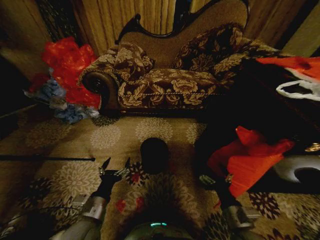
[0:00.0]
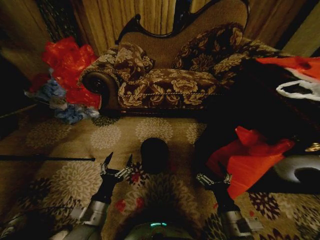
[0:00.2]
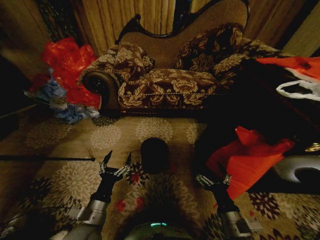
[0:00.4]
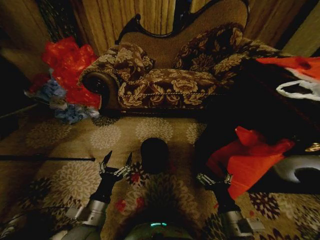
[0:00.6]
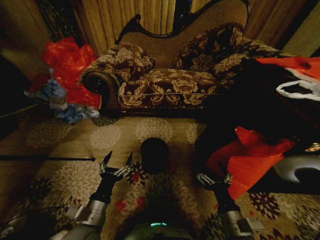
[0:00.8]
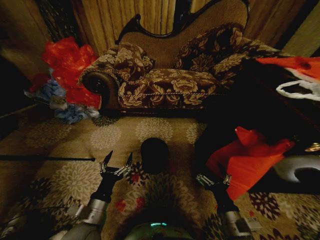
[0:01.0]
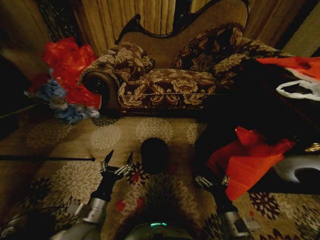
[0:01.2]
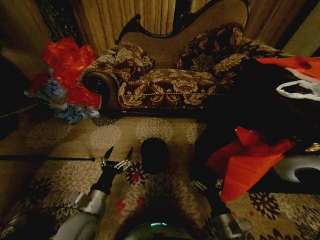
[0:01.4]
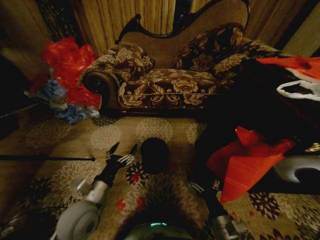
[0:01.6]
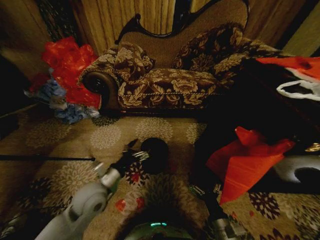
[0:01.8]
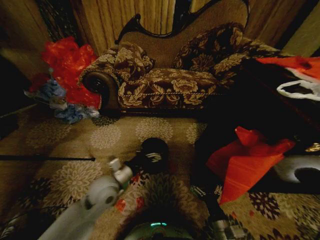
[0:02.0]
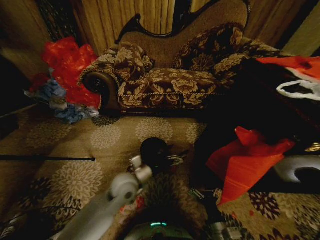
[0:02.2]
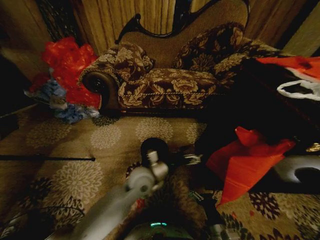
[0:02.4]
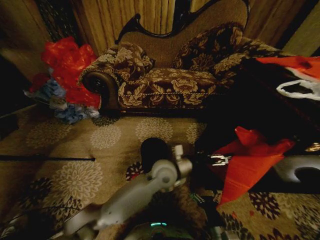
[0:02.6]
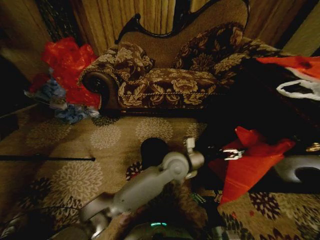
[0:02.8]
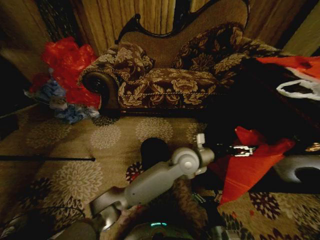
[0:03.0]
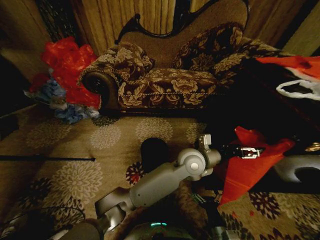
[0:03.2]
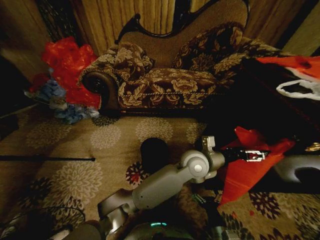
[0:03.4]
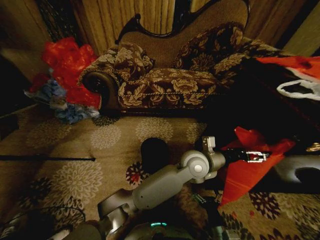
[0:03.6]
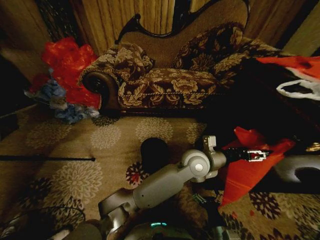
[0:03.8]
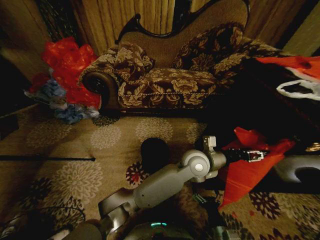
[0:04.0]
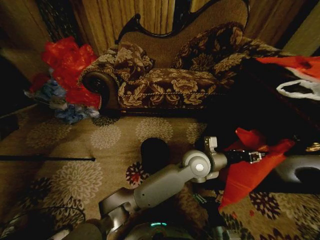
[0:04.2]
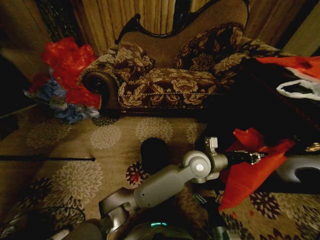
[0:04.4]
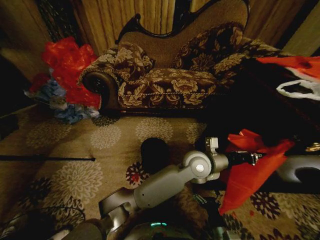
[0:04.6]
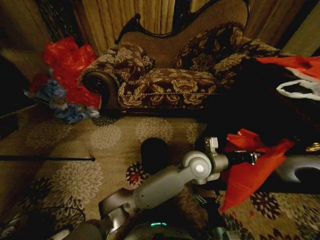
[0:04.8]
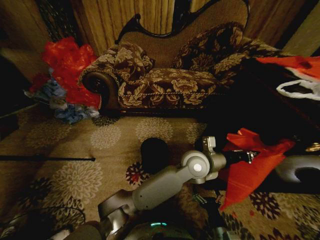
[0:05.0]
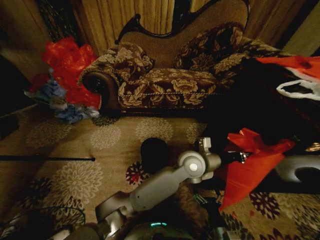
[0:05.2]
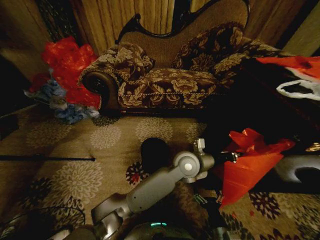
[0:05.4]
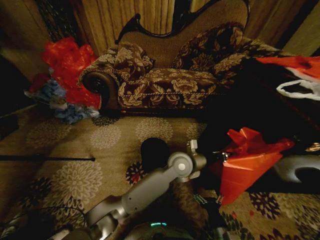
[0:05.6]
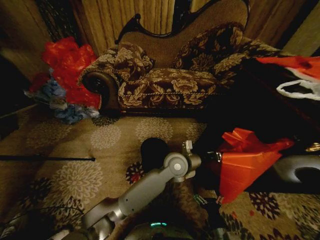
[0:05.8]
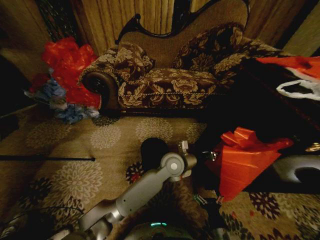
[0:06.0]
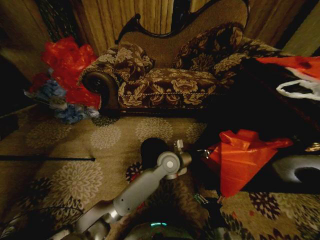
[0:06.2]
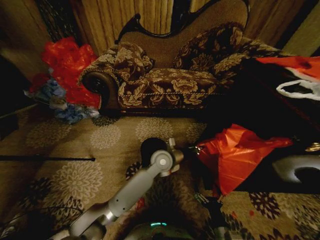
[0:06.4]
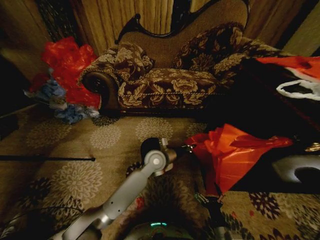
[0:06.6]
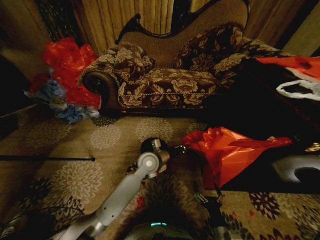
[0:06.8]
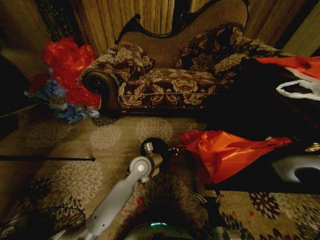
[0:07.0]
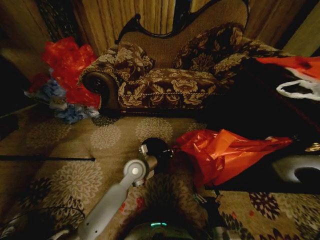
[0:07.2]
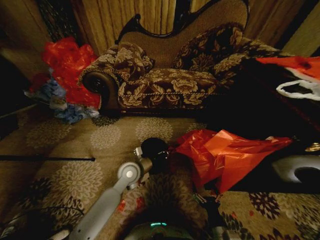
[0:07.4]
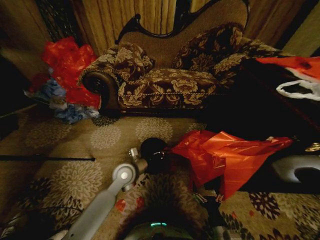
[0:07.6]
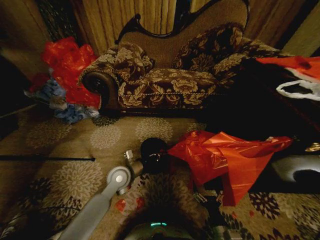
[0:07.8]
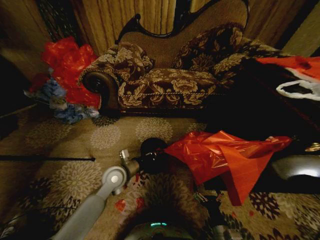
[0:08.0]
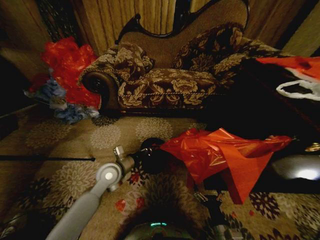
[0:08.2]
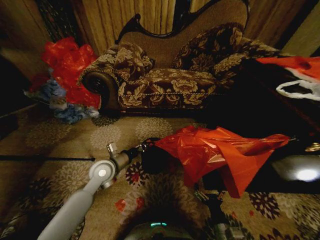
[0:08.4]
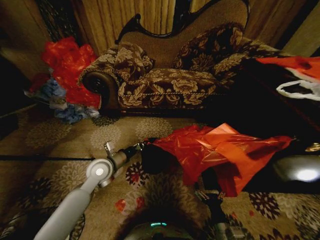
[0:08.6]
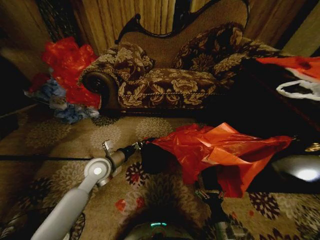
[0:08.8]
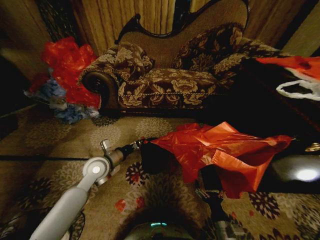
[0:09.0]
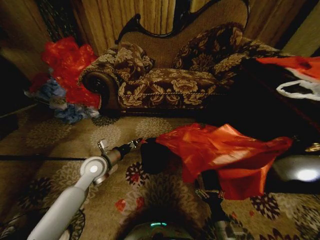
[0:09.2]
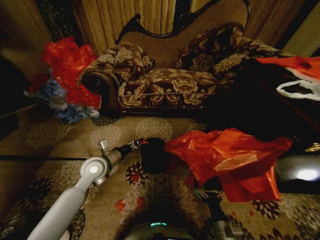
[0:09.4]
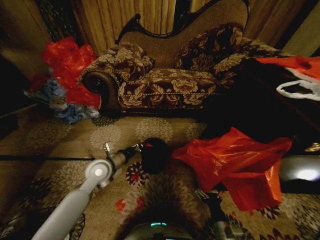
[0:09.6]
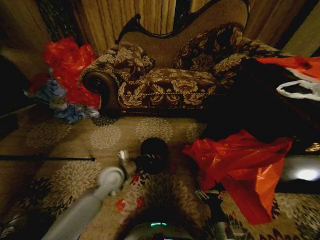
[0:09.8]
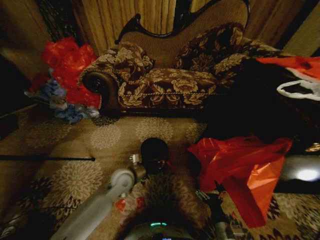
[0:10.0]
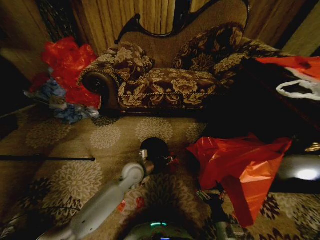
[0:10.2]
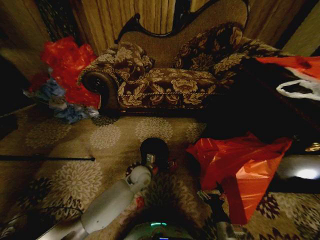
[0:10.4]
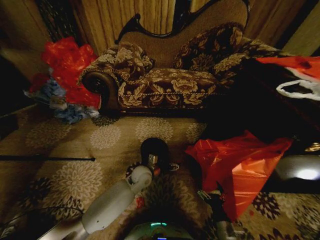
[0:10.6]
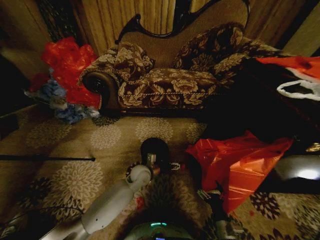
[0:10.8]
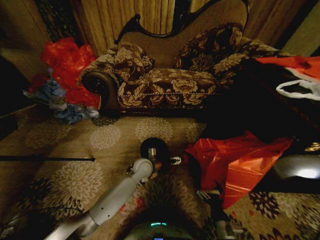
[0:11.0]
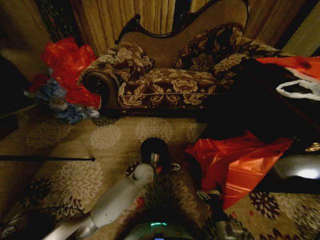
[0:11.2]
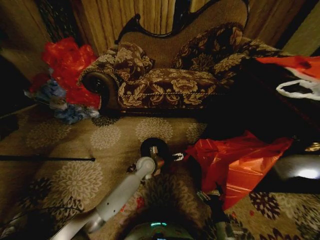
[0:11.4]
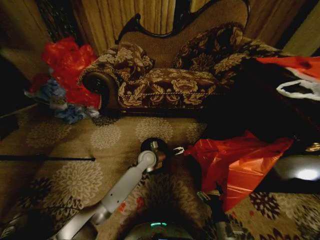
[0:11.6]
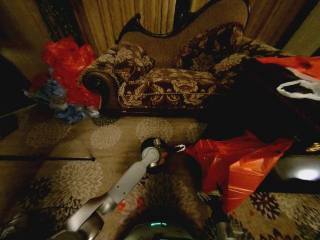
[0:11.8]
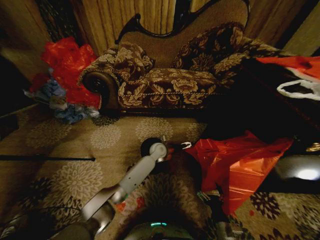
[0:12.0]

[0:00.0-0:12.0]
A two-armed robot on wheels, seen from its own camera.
Task of the whole recording: Place a garbage bag over the trash bin.
0:01.6 to 0:03.0: The left gripper travels to the right and forward by roughly 35 cm. The right gripper shifts some 10 cm downward.
0:03.0 to 0:04.4: The left gripper closes.
0:04.4 to 0:06.0: The left gripper shifts roughly 10 cm to the left.
0:06.0 to 0:07.6: The left gripper shifts some 20 cm to the left.
0:07.6 to 0:09.0: The left gripper travels to the left by about 10 cm.
0:09.0 to 0:10.4: The left gripper goes approximately 20 cm to the right and downward, and opens up.
0:10.4 to 0:12.0: The left gripper moves forward and to the right, approximately 15 cm.

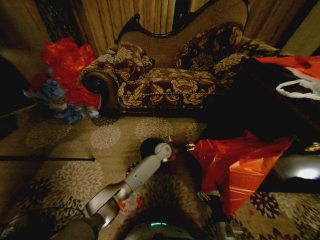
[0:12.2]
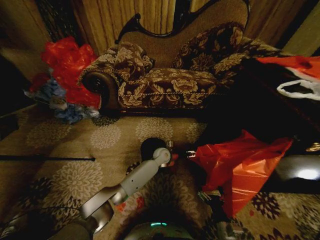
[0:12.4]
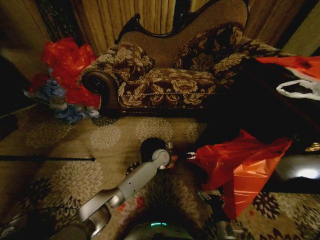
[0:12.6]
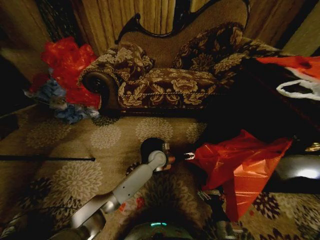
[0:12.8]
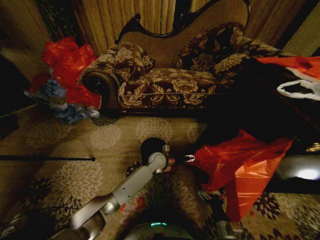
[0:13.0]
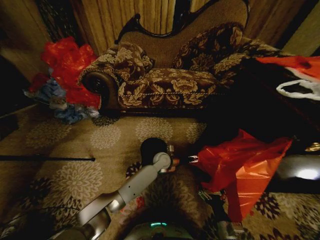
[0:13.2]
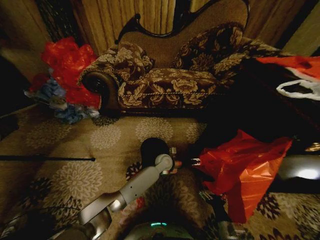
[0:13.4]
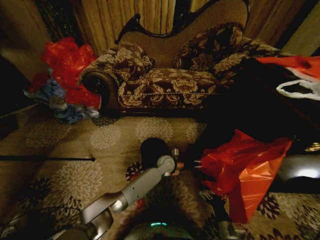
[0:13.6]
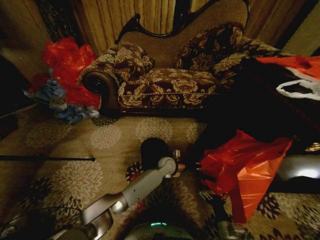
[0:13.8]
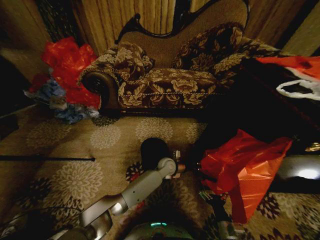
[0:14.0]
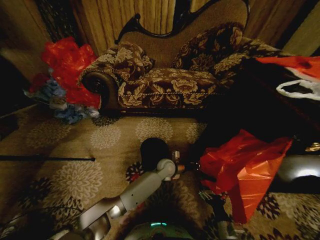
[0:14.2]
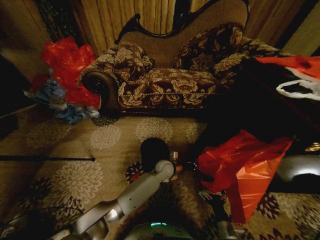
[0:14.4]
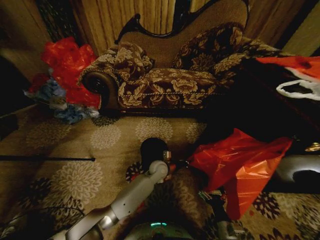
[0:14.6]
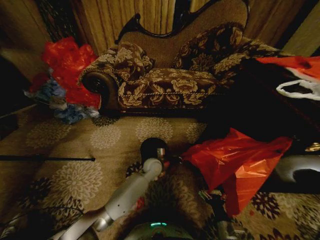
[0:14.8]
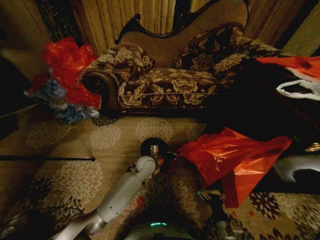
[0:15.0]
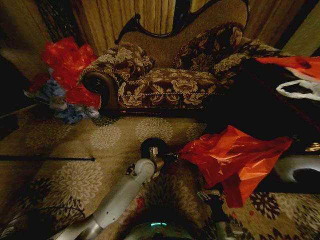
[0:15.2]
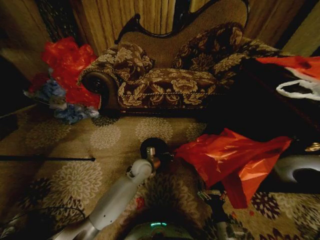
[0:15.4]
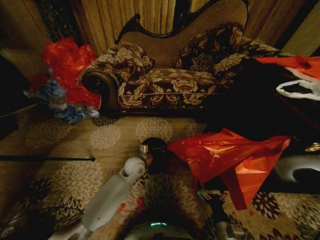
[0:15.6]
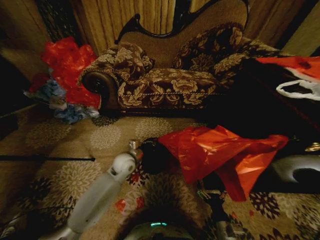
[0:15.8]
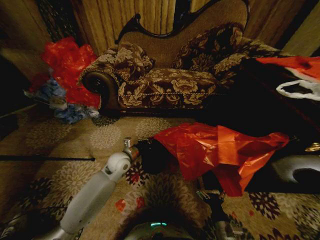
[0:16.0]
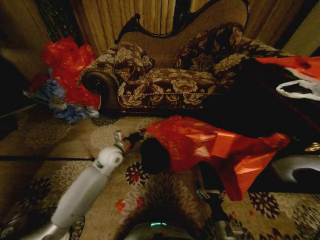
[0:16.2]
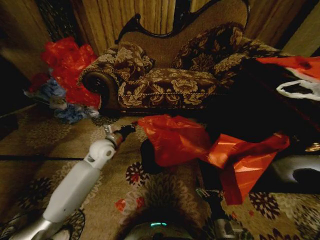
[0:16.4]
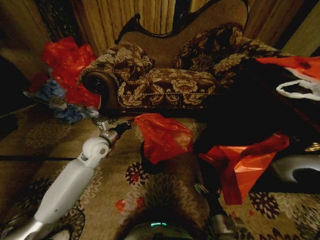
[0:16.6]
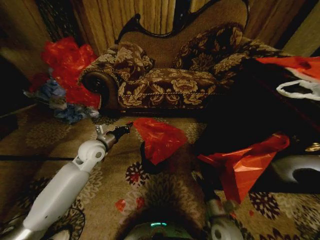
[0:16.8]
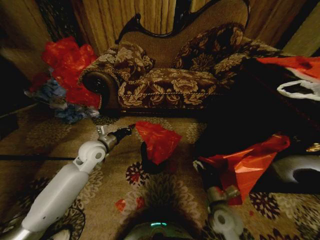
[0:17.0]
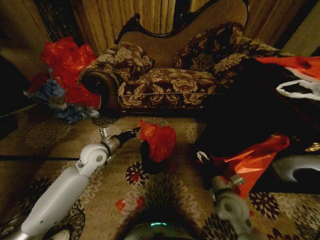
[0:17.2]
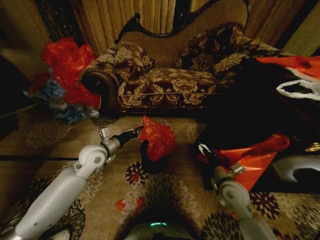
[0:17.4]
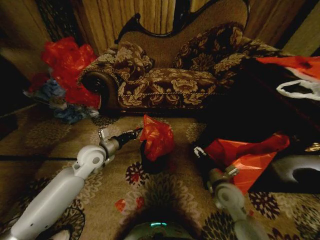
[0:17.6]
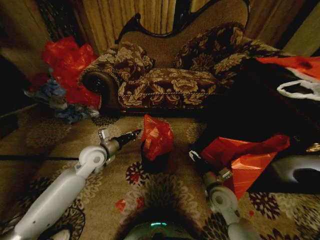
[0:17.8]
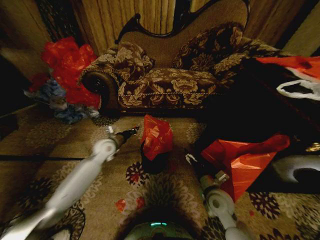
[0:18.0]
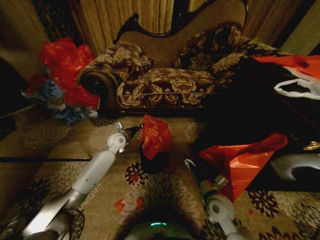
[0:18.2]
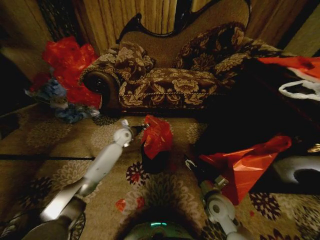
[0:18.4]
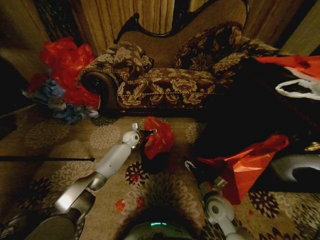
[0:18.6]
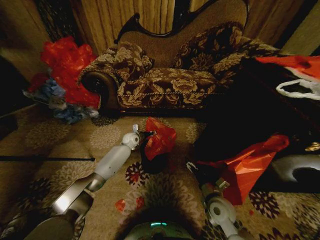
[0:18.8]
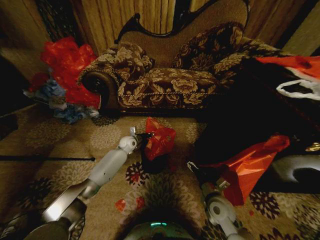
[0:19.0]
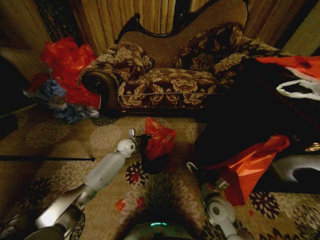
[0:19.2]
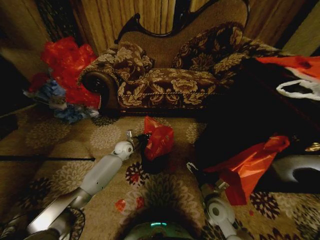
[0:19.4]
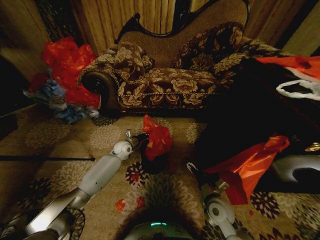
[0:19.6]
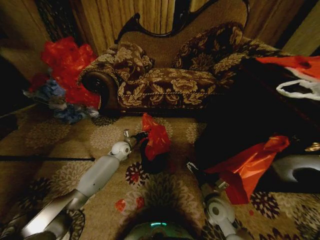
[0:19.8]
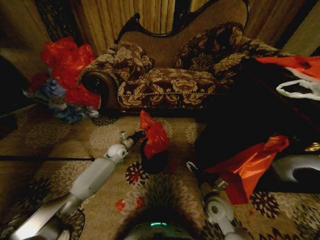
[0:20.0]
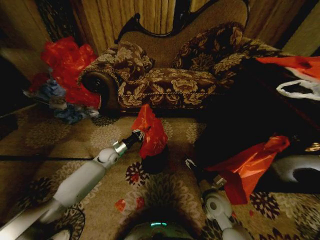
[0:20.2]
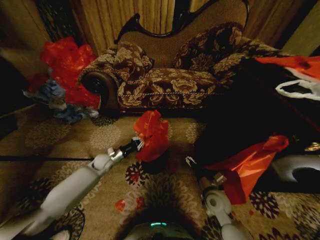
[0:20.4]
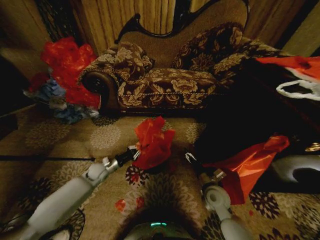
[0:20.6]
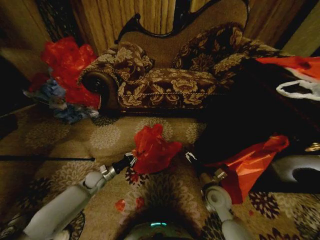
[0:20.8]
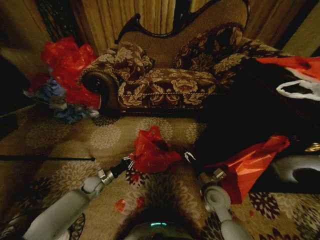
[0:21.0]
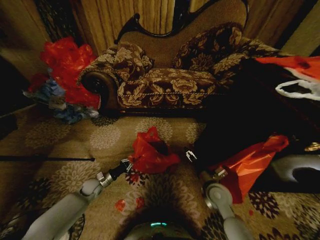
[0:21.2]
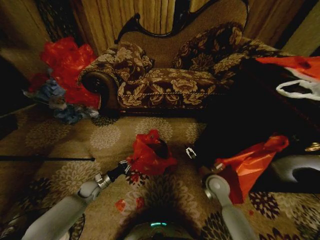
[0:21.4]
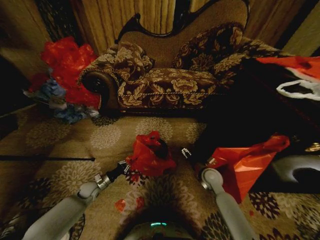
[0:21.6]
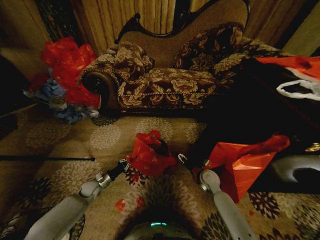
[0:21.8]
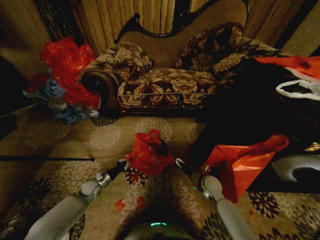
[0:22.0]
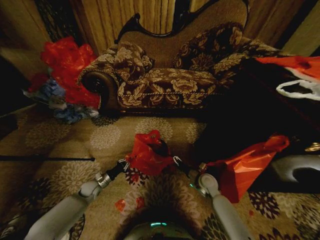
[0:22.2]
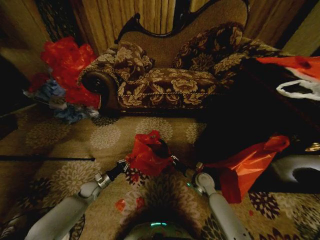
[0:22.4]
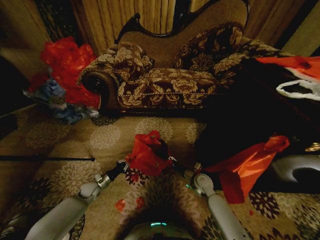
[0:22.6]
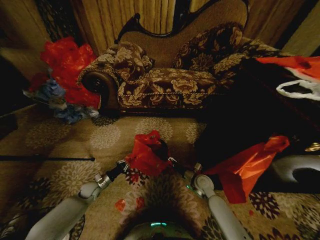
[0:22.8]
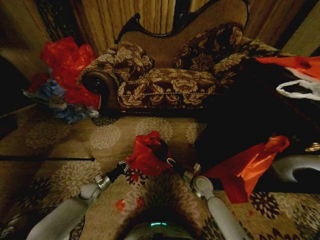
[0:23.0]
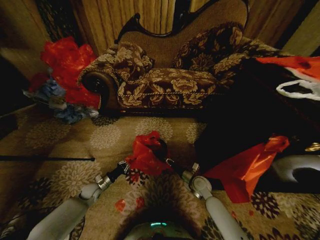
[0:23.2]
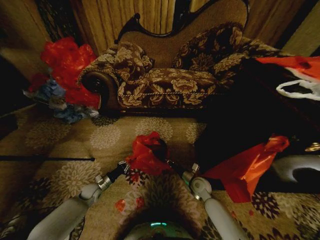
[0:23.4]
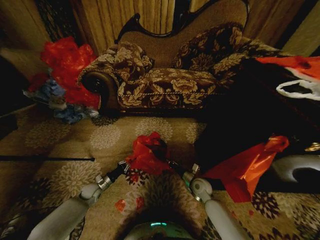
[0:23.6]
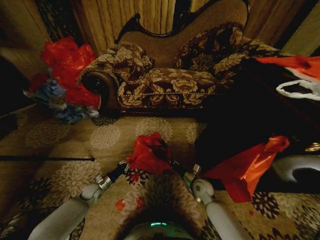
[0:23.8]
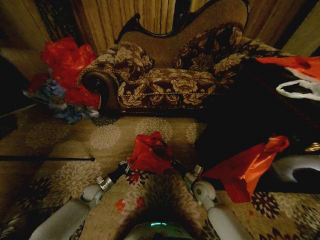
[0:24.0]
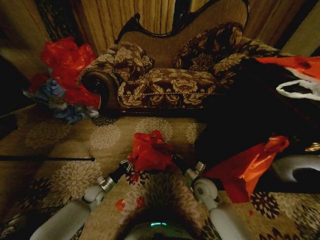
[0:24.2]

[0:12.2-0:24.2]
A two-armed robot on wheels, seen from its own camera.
Task of the whole recording: Place a garbage bag over the trash bin.
0:12.2 to 0:13.8: The left gripper is displaced backward by about 5 cm, and closes its fingers.
0:13.8 to 0:15.2: The left gripper goes some 10 cm to the left, and closes.
0:15.2 to 0:16.6: The left gripper shifts about 25 cm to the left and upward.
0:16.6 to 0:18.2: The left gripper heads forward and downward, covering approximately 15 cm. Meanwhile the right gripper heads forward and upward, covering some 15 cm.
0:18.2 to 0:19.8: The left gripper travels downward by roughly 5 cm, and opens, then closes once more.
0:19.8 to 0:21.2: The left gripper goes approximately 25 cm backward, to the left and downward. Meanwhile the right gripper changes place by some 5 cm.
0:21.2 to 0:22.6: The right gripper travels downward and forward by roughly 10 cm.
0:22.6 to 0:24.2: The right gripper heads upward, covering roughly 5 cm, and closes up.
